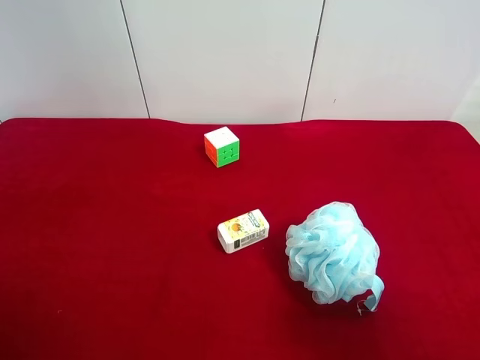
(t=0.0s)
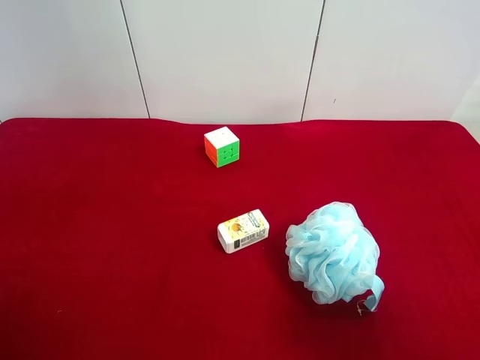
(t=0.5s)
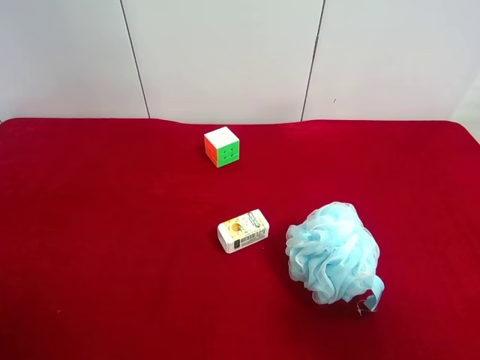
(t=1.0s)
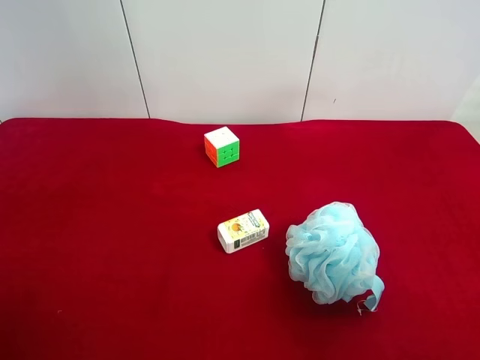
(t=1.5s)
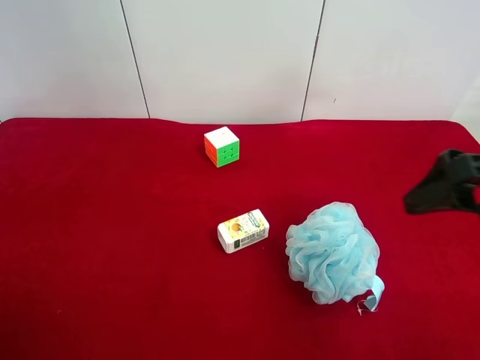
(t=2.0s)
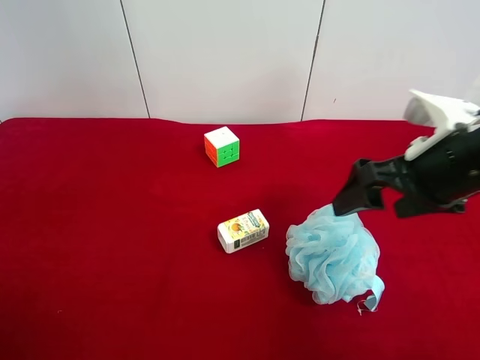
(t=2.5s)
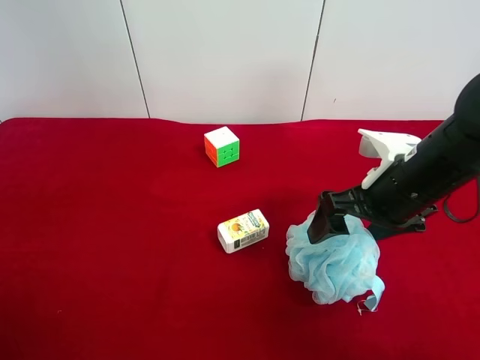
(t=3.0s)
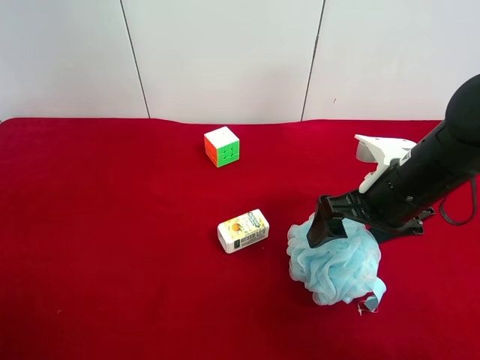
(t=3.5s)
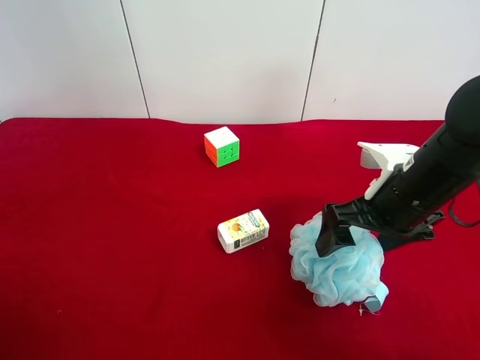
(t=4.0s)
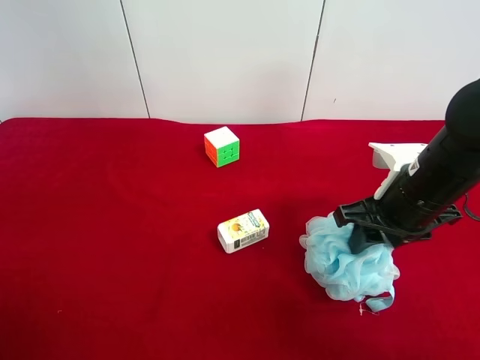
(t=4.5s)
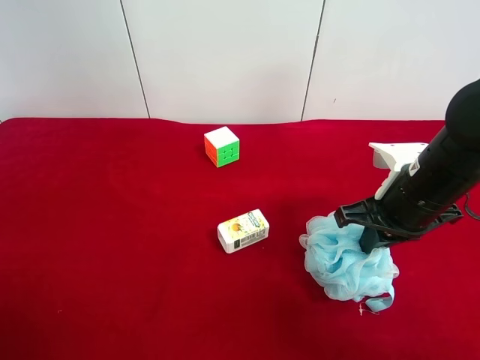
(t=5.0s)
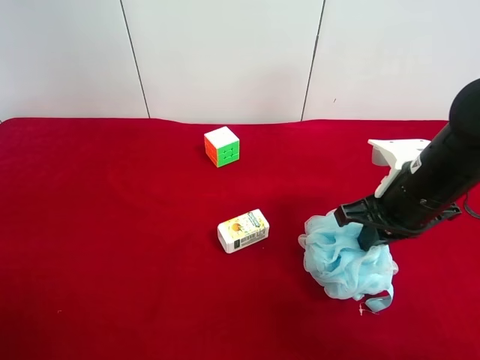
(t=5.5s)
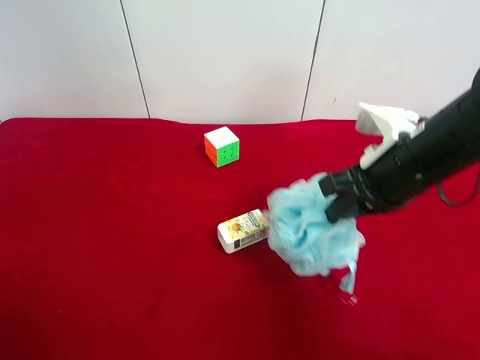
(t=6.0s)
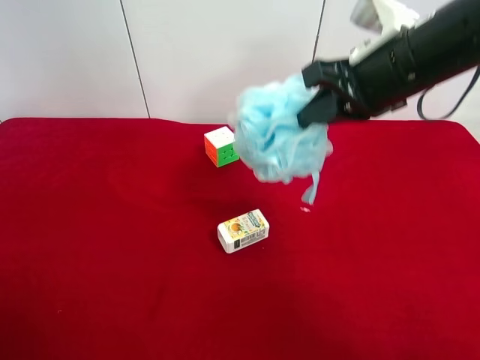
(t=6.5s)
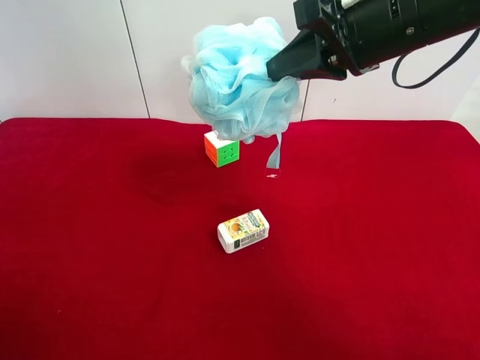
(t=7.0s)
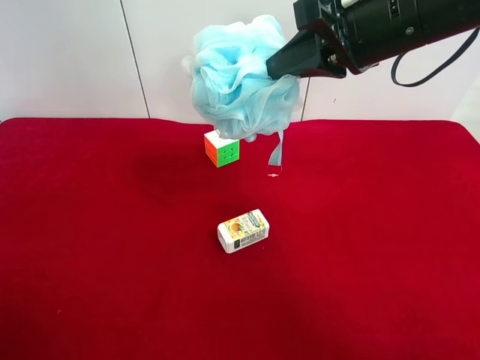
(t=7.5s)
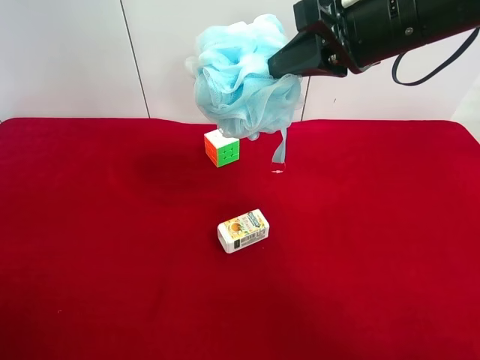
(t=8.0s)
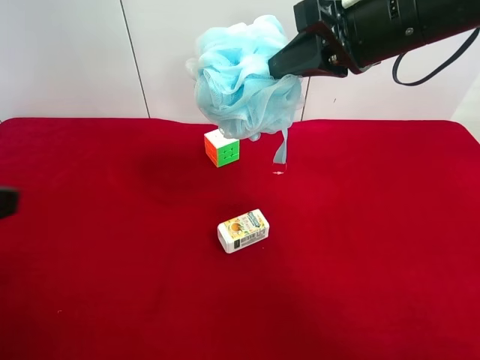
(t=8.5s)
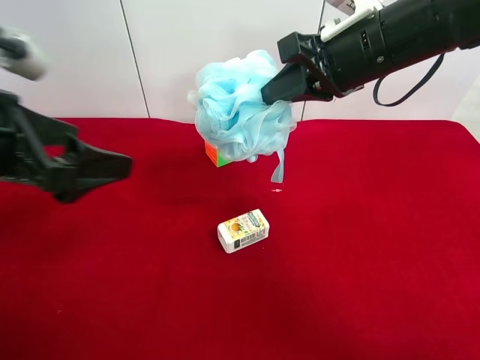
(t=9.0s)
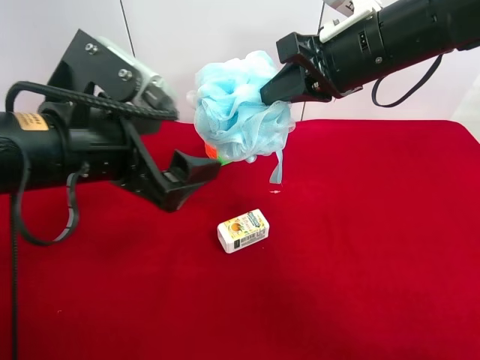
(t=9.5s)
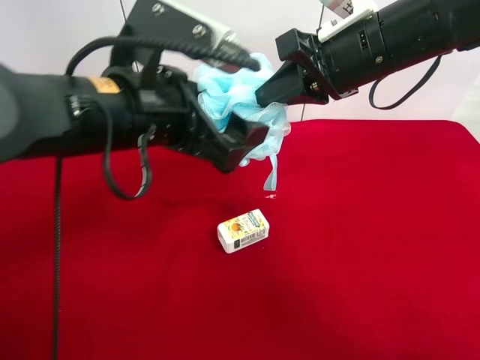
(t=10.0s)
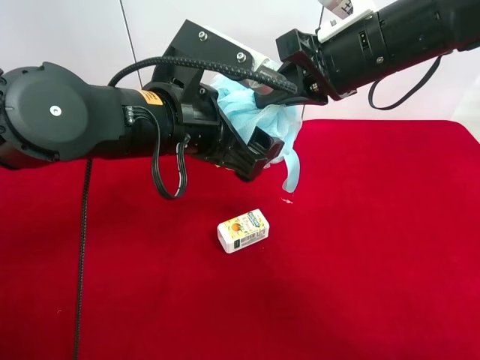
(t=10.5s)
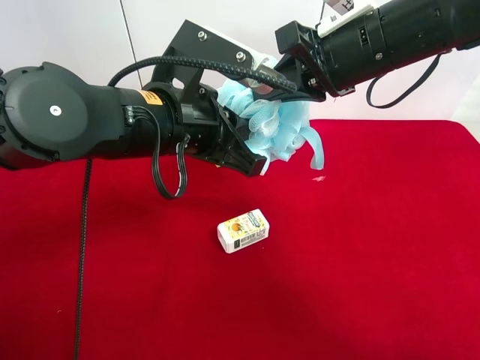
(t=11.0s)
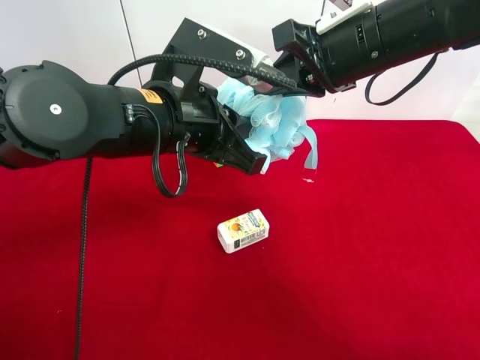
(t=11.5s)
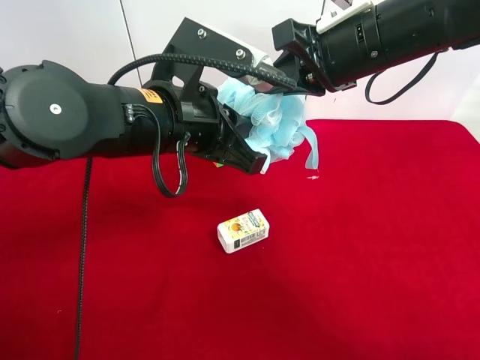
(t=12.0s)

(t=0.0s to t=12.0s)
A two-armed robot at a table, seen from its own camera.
Task of the whole recording: use the right gripper to pick up the item and transfer it from the right gripper to the left gripper.
Step, t=0.0s - t=4.5s: Use the right gripper to grab the shower sphere on the right side of the table.
t=2.0s - t=4.0s: The right gripper travels downward, forward and to the left by roughly 15 cm.
t=4.0s - t=6.0s: The right gripper closes.
t=6.0s - t=8.0s: The right gripper travels upward by roughly 15 cm.
t=8.0s - t=10.0s: The left gripper travels forward and to the right by some 30 cm.
t=10.0s - t=12.0s: The left gripper closes.

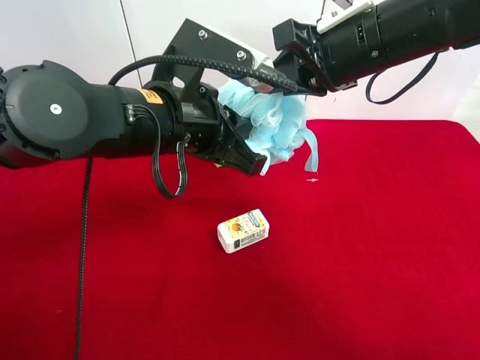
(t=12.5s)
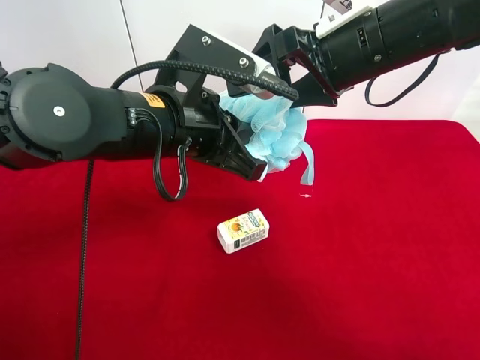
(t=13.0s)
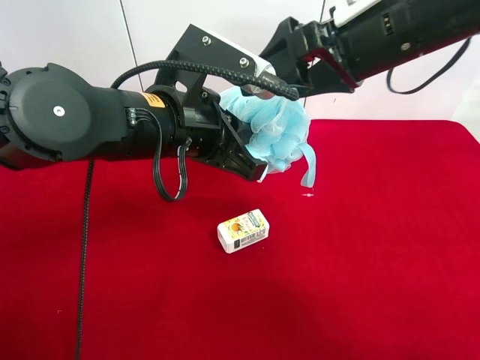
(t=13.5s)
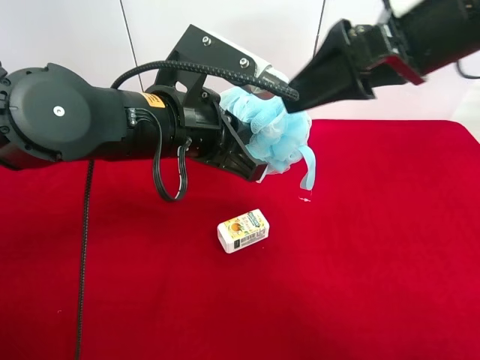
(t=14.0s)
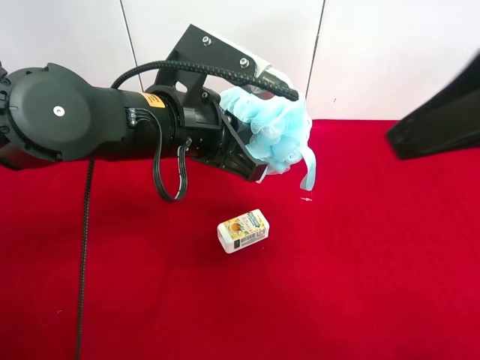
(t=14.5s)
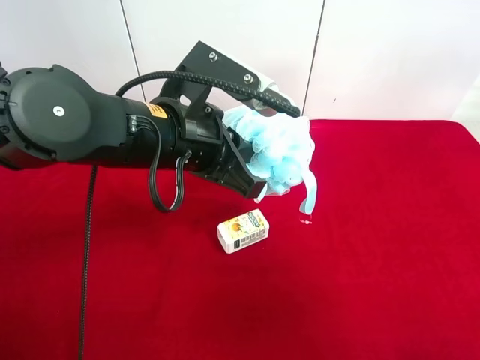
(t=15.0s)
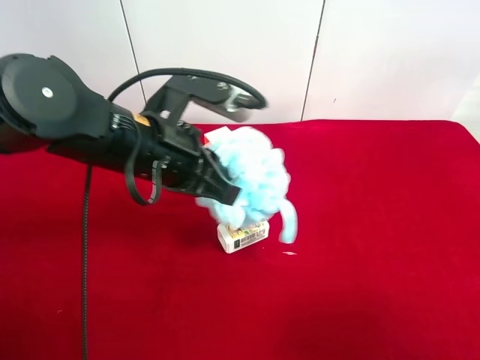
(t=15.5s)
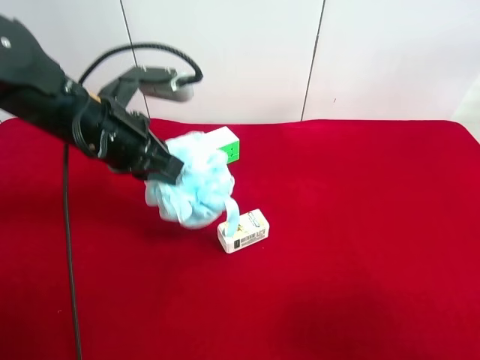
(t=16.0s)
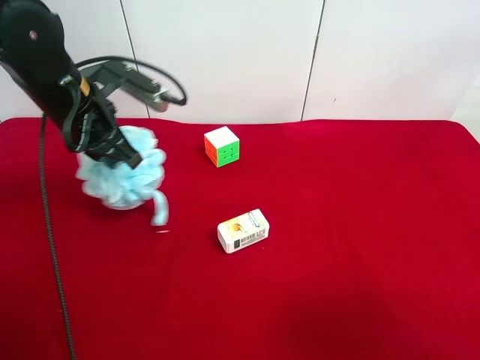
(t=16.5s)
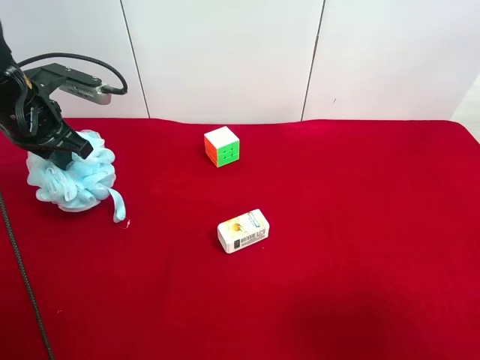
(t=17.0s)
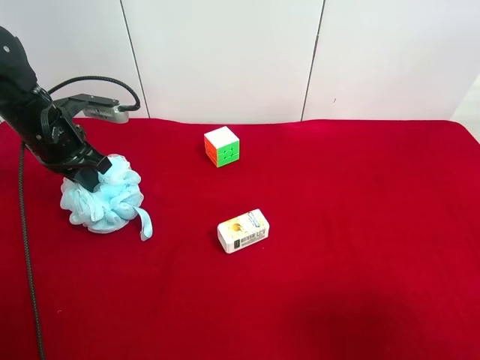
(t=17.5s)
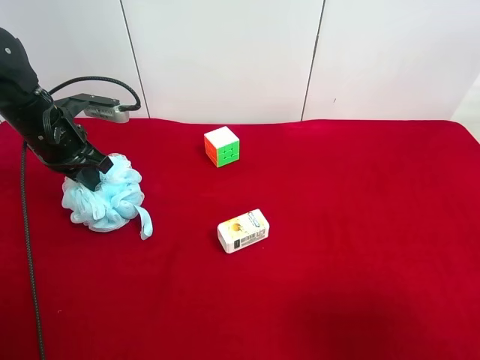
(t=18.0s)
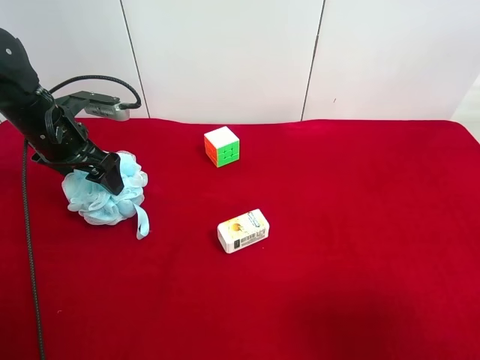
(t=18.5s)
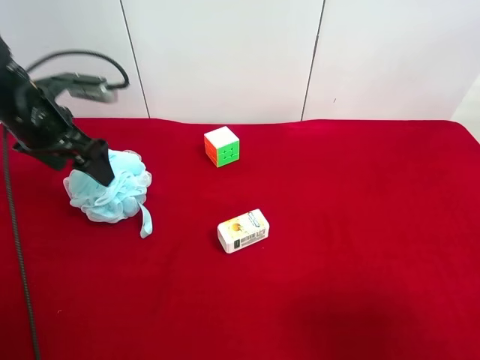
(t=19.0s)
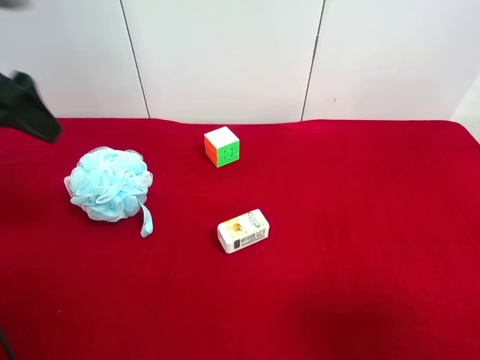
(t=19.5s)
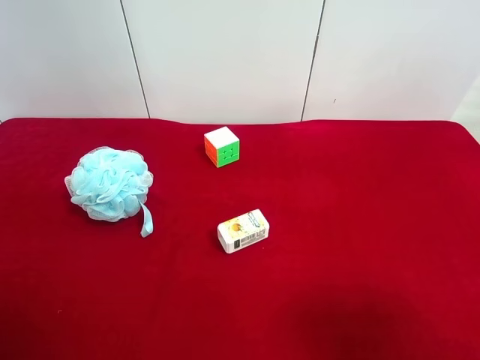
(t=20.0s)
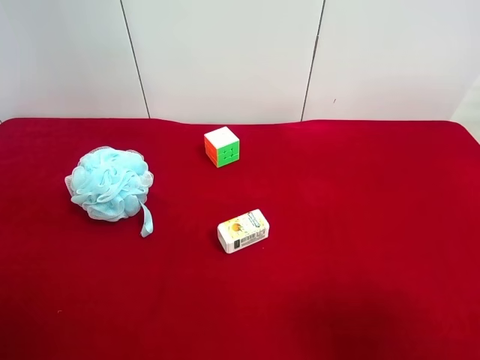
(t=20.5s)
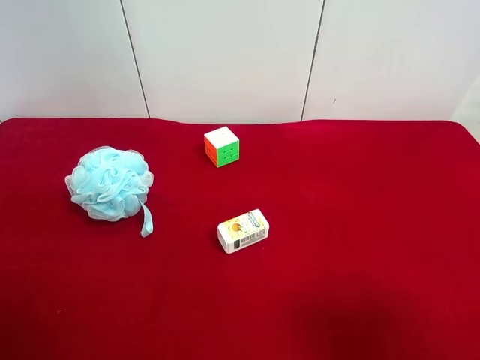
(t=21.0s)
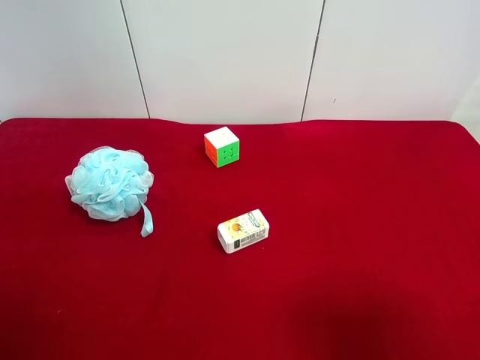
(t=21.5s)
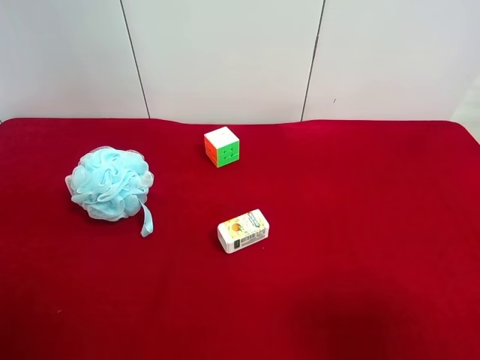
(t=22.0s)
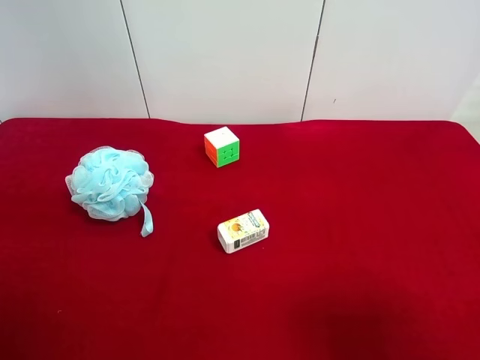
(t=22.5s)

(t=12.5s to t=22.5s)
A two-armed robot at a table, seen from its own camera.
Task of the whole recording: use the right gripper to pick up the item and transfer it from the right gripper to the left gripper.
Step, t=13.5s - t=19.0s: The left gripper places shower sphere on the left side of the table.
t=12.5s - t=14.5s: The right gripper heads backward, upward and to the right, covering roughly 15 cm, and opens.
t=14.5s - t=16.5s: The right gripper is displaced backward, downward and to the right by some 20 cm. Meanwhile the left gripper moves to the left and forward, about 10 cm.
t=16.5s - t=18.5s: The left gripper moves to the left and downward, approximately 10 cm, and opens its fingers.
t=18.5s - t=20.5s: The left gripper travels backward and upward by roughly 35 cm.
